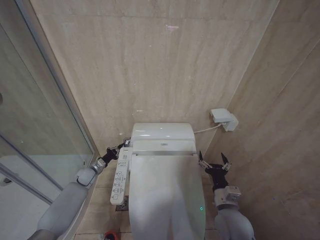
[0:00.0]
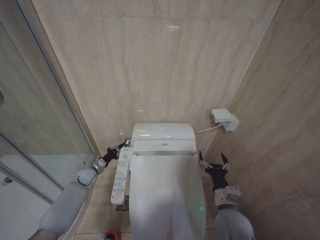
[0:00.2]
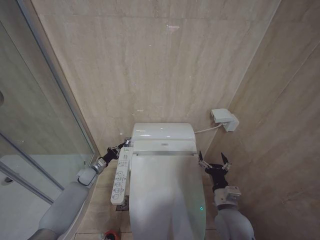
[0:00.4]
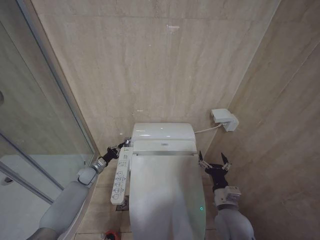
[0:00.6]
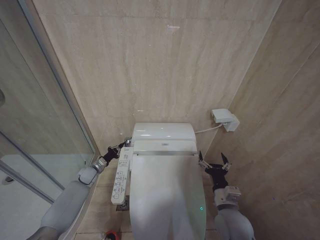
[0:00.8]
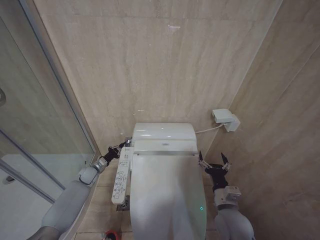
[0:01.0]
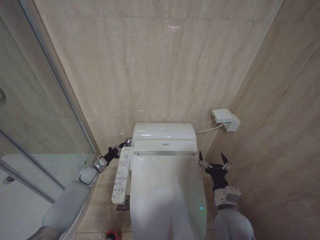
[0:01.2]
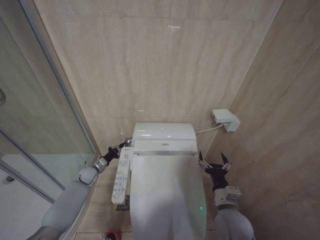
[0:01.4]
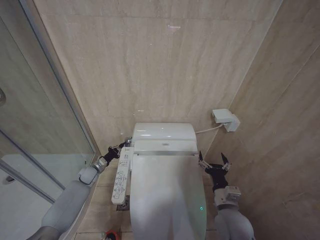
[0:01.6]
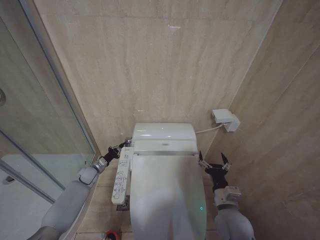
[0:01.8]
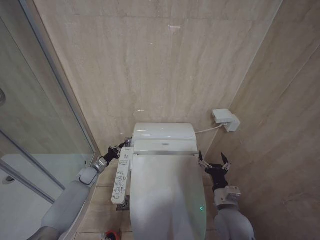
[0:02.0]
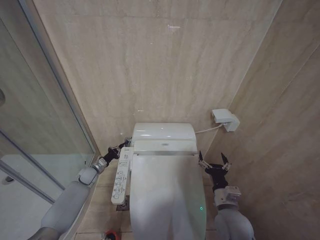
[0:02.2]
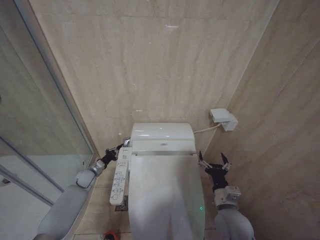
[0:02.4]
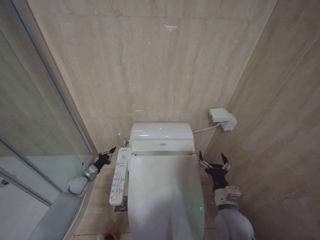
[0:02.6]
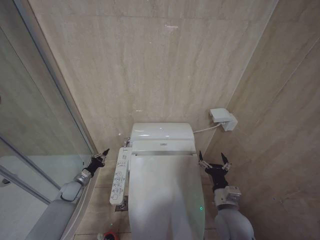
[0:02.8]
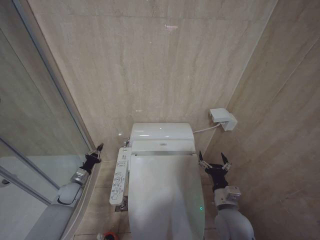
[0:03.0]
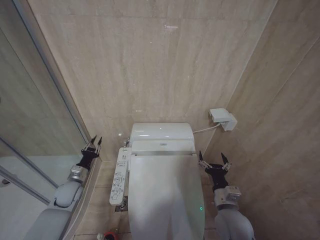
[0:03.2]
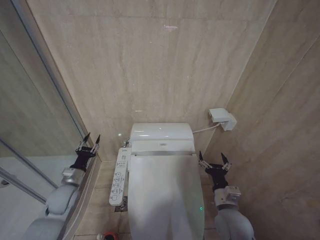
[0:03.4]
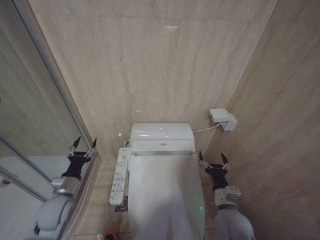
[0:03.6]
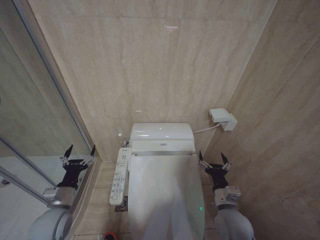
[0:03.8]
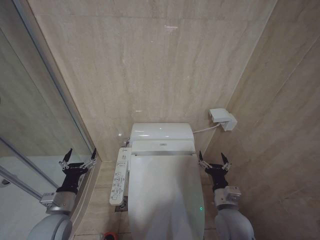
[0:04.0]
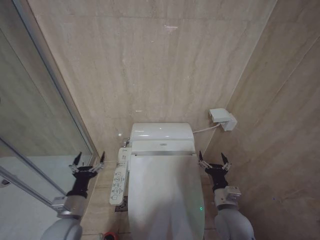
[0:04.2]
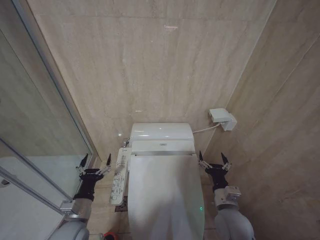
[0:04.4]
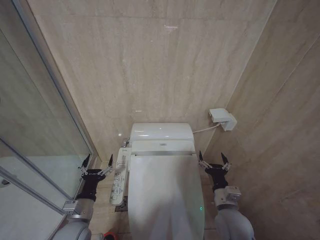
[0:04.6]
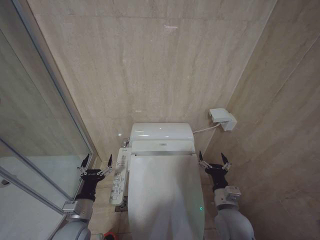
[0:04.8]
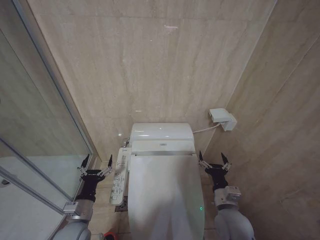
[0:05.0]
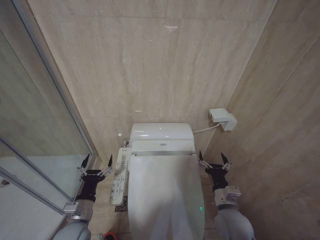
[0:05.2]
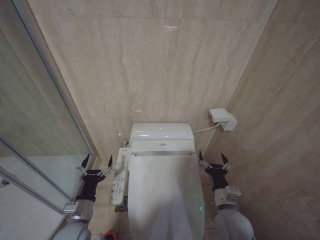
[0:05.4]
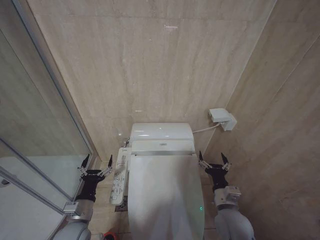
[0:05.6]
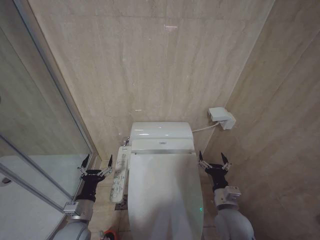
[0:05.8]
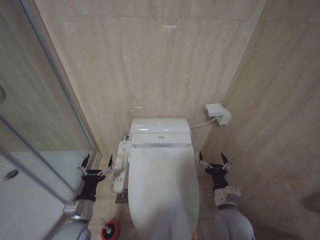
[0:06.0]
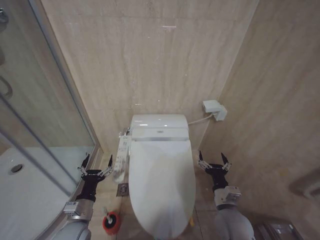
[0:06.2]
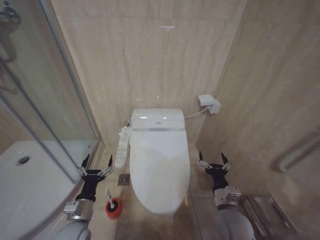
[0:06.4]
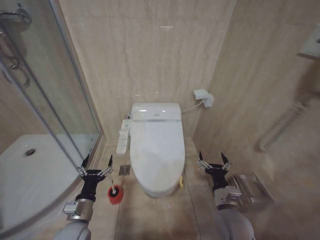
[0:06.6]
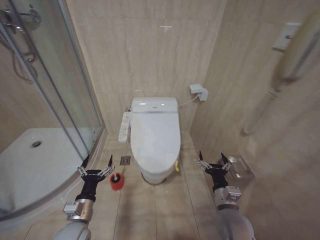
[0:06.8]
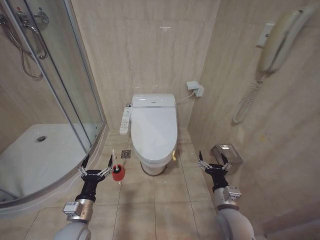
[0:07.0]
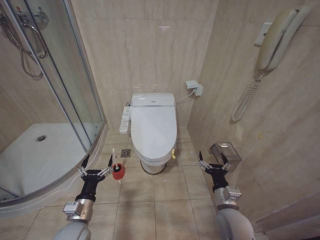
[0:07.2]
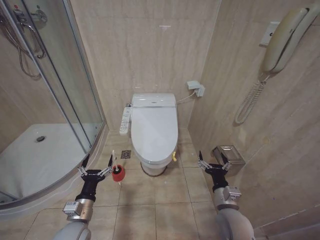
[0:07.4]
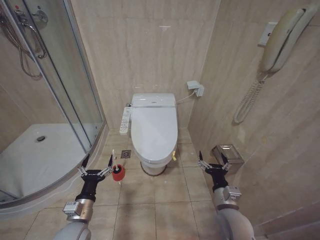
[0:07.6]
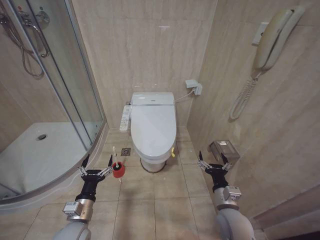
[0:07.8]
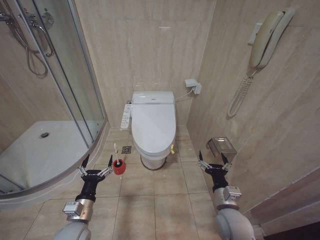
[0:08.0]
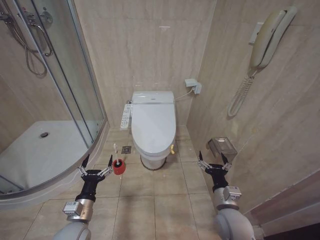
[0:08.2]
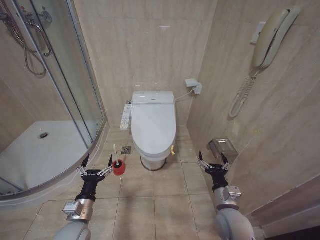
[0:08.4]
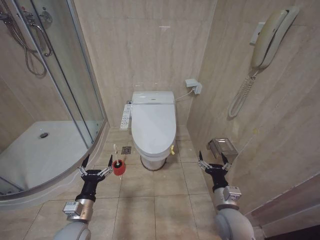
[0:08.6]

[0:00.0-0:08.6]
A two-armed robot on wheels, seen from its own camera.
Task of the whole recording: Open the toilet lid, clean the toilet bowl with a toilet brush, close the toilet lid, and flush.
0:00.0 to 0:01.4: Both grippers stay put.
0:01.4 to 0:02.8: The left gripper is displaced backward and to the left by some 10 cm.
0:02.8 to 0:04.4: The left gripper travels backward, to the right and upward by approximately 25 cm, and opens up.
0:04.4 to 0:05.8: The grippers make only small movements.
0:07.2 to 0:08.6: Both grippers stay put.

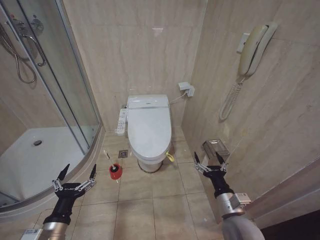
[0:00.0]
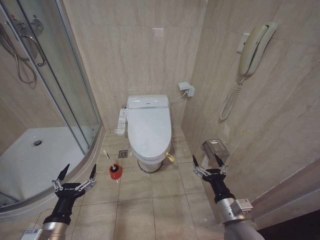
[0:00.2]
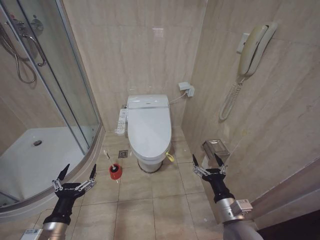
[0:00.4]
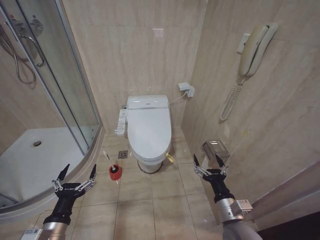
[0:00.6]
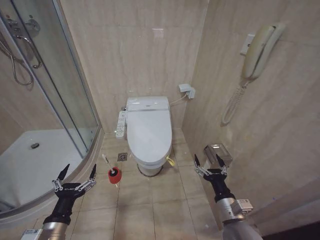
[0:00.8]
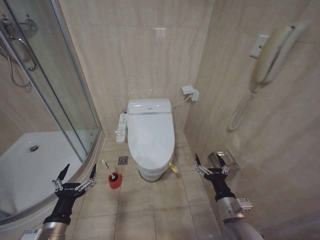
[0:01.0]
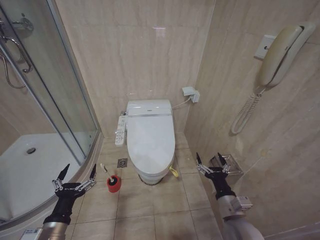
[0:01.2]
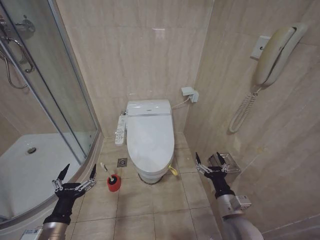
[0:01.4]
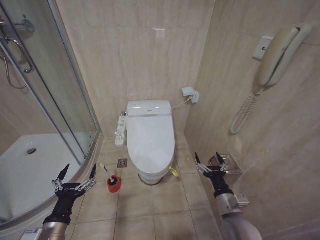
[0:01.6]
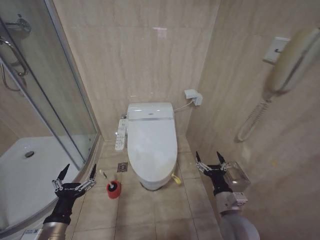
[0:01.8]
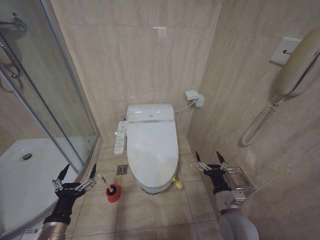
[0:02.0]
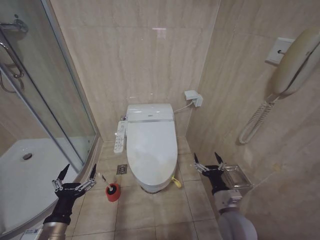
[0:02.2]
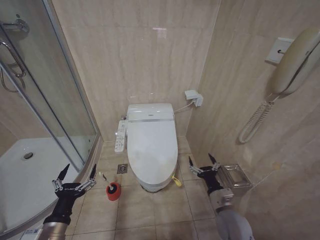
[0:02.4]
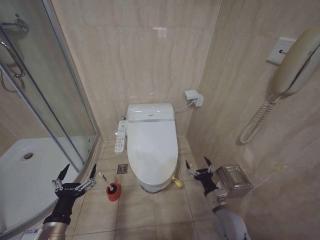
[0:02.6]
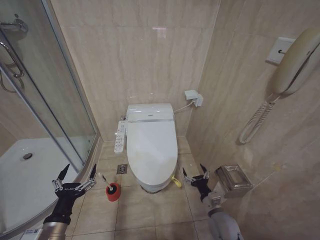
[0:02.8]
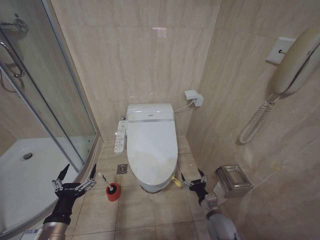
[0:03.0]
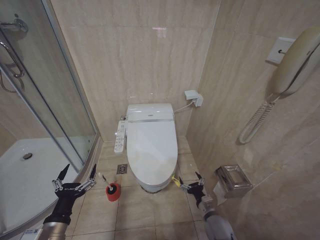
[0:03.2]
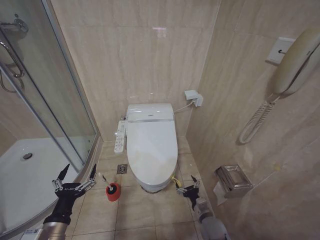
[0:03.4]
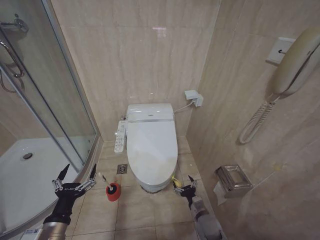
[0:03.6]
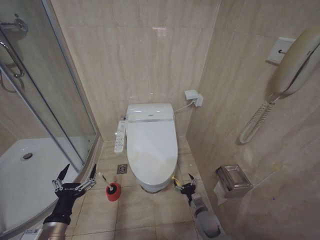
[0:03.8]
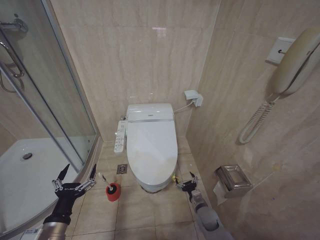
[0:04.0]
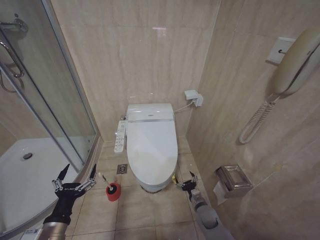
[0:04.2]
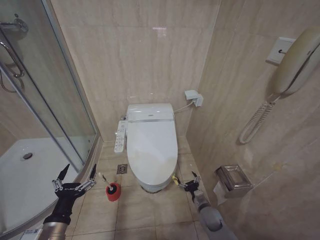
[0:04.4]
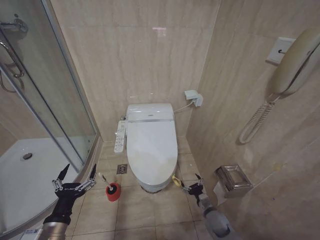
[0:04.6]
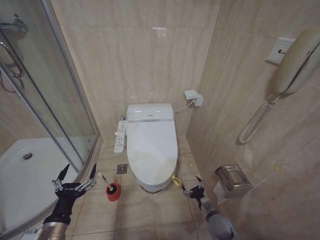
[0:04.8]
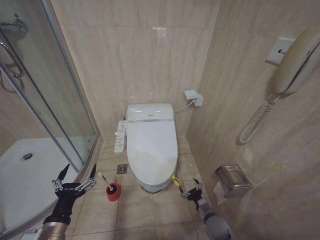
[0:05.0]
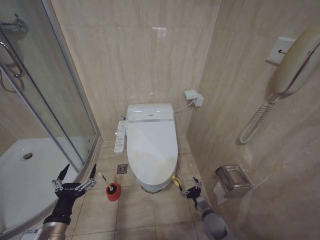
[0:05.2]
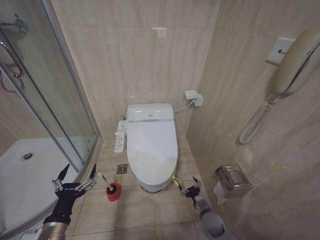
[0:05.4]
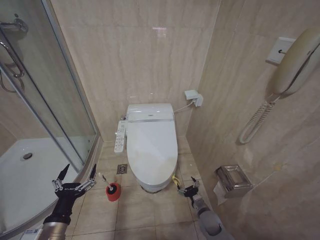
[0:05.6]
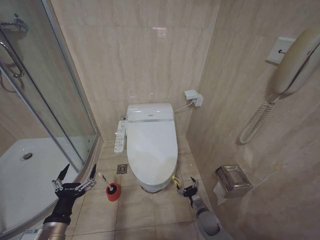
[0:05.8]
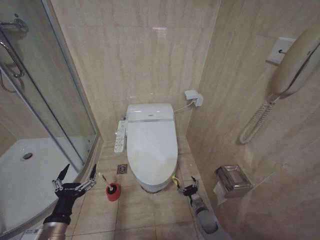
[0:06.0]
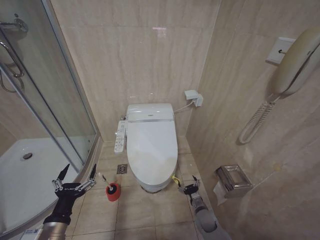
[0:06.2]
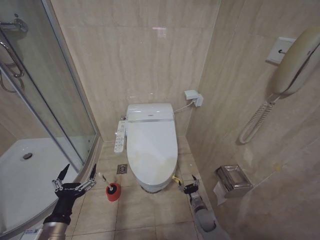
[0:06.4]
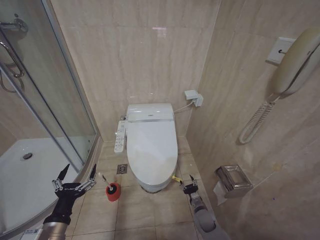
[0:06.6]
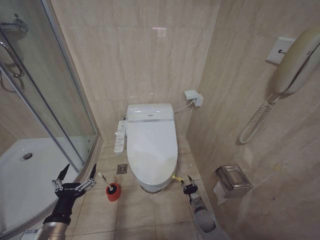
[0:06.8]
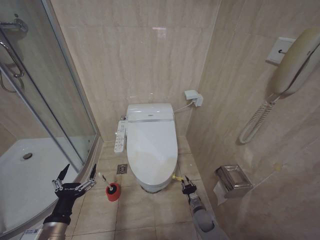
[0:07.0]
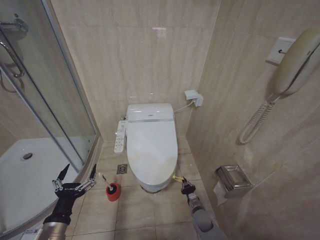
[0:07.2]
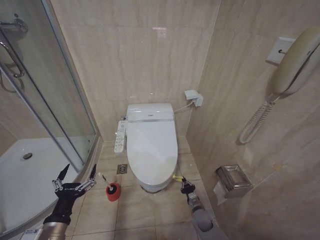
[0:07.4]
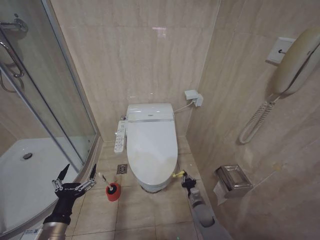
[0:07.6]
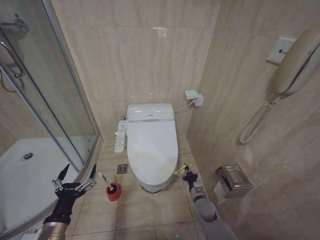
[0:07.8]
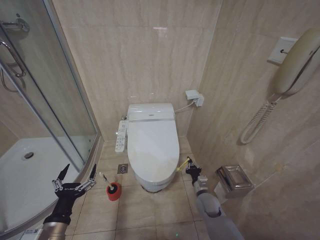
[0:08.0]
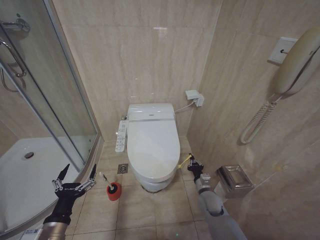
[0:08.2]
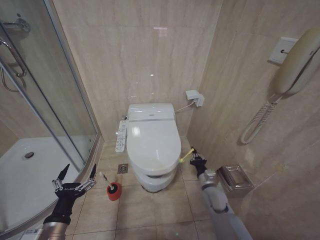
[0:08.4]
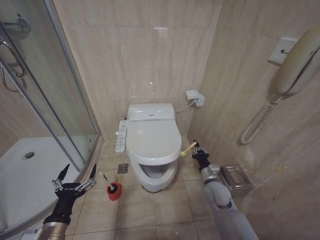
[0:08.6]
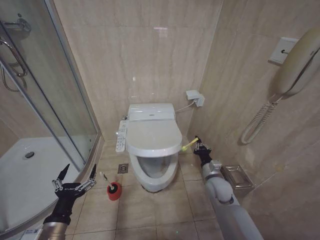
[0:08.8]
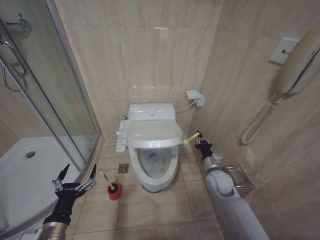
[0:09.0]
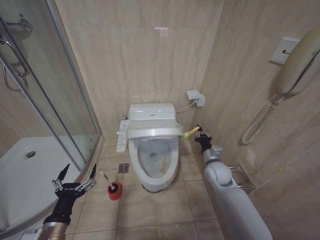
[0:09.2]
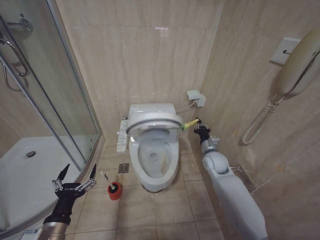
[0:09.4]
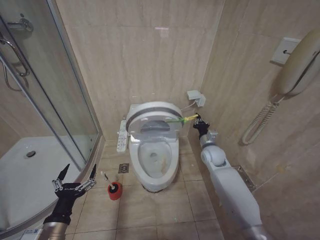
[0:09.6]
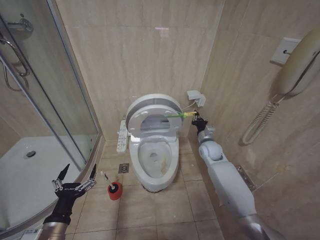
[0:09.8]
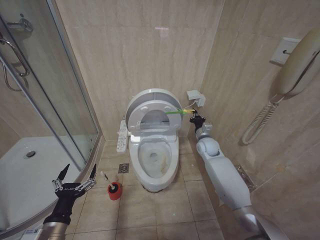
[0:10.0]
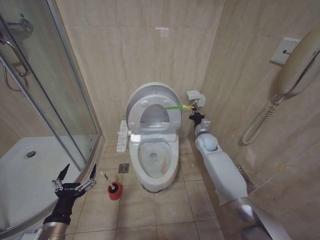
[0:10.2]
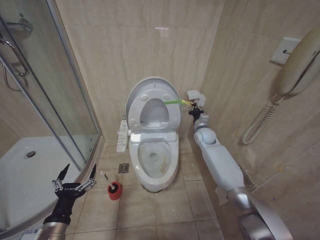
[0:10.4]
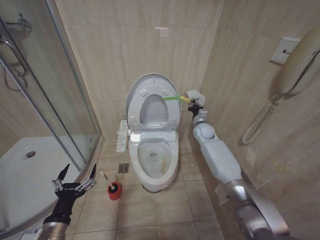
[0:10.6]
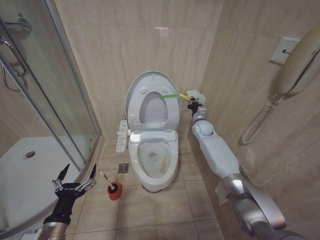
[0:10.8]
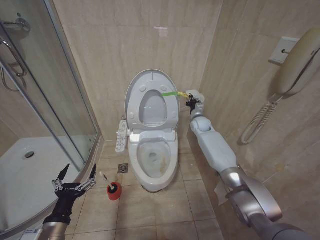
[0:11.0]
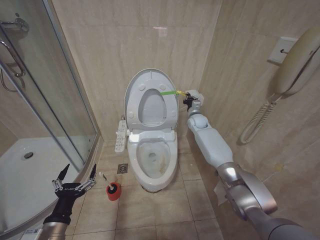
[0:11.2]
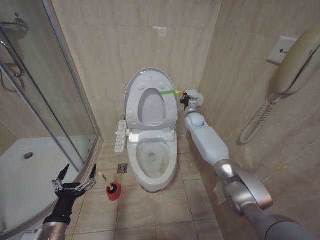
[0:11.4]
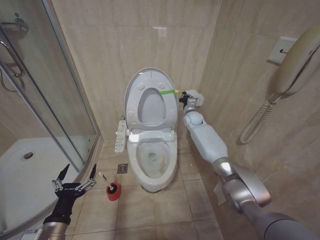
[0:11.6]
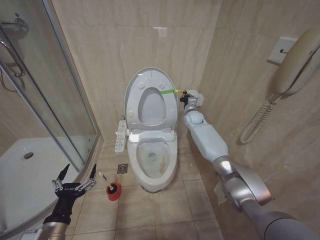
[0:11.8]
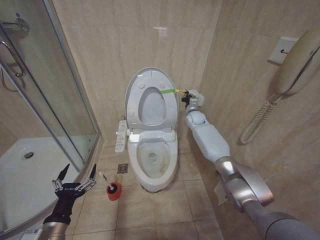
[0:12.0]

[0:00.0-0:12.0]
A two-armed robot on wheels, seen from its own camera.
Task of the whole recording: Open the toilet lid, clean the toilet bowl with a toilet brush, close the toilet lid, and flush.
0:01.6 to 0:03.0: The right gripper is displaced downward by roughly 10 cm.
0:03.0 to 0:04.4: The right gripper goes about 10 cm downward and forward.
0:06.0 to 0:07.6: The right gripper closes its fingers.
0:07.6 to 0:09.0: The right gripper goes approximately 20 cm upward.
0:09.0 to 0:10.4: The right gripper is displaced forward and upward by approximately 20 cm.
0:10.4 to 0:12.0: The right gripper heads forward and upward, covering about 10 cm.

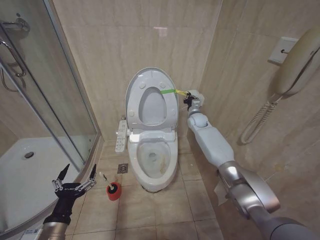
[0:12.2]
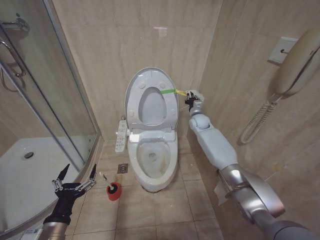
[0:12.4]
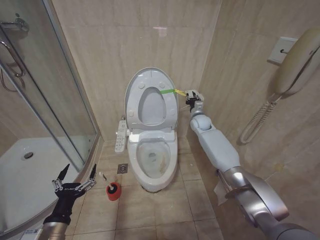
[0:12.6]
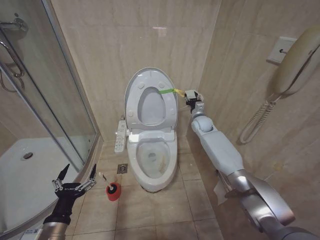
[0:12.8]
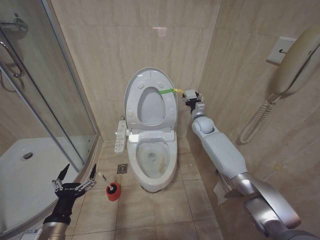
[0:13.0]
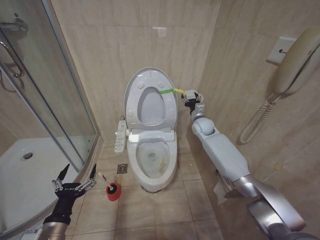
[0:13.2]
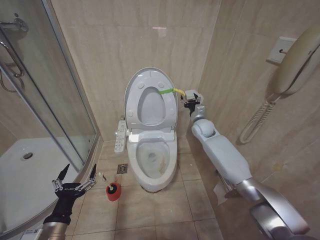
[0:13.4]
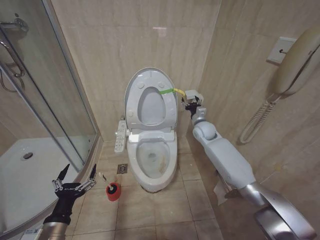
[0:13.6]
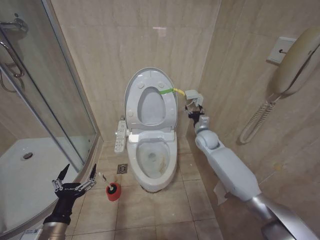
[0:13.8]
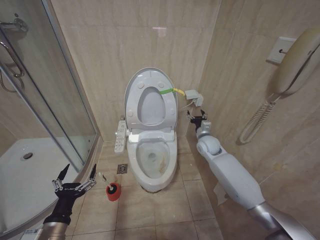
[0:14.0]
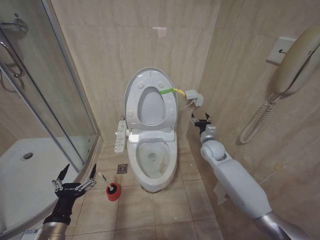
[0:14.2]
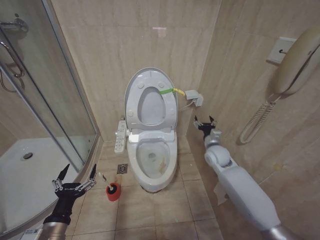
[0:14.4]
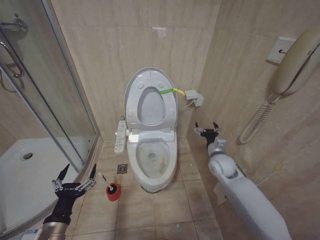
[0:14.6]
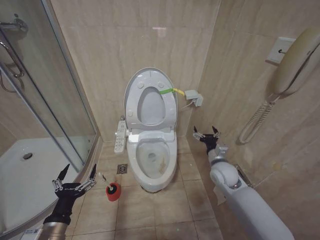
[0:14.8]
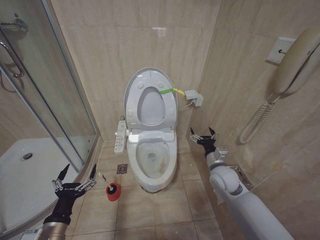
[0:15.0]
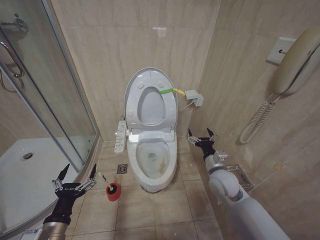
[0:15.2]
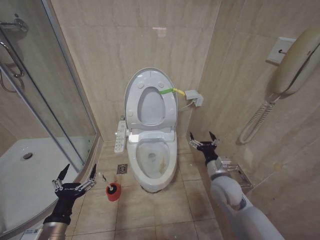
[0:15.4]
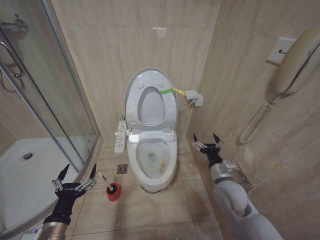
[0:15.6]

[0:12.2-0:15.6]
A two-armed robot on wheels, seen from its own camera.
Task of the whole recording: Open the toilet lid, clean the toilet bowl with a toilet brush, close the toilet lid, and flush.
0:12.2 to 0:13.8: The right gripper travels backward by some 10 cm, and opens its fingers.
0:13.8 to 0:15.6: The right gripper goes about 20 cm backward.
